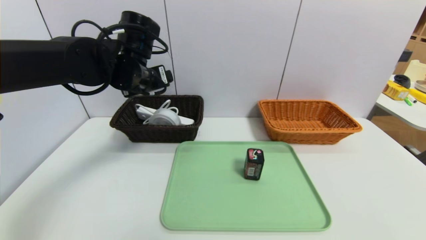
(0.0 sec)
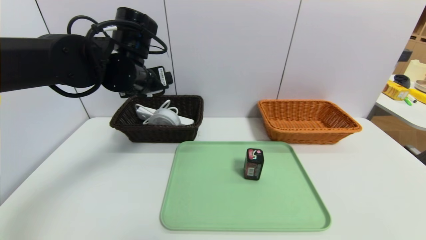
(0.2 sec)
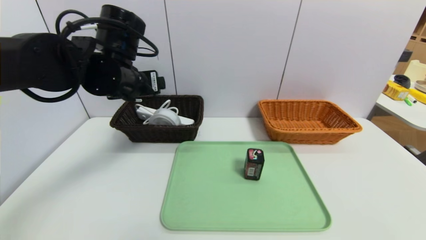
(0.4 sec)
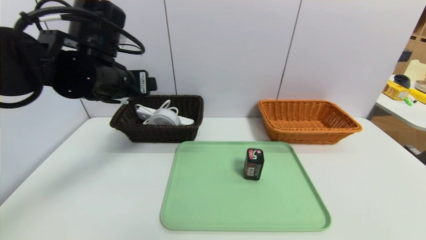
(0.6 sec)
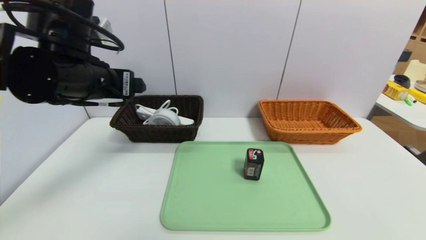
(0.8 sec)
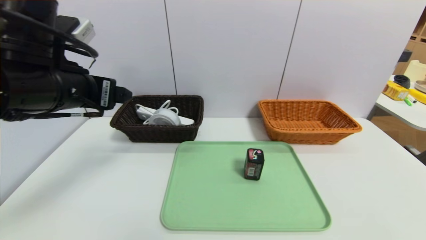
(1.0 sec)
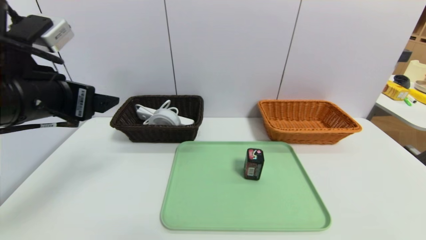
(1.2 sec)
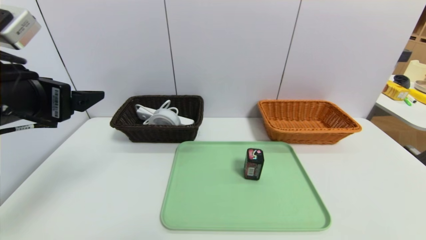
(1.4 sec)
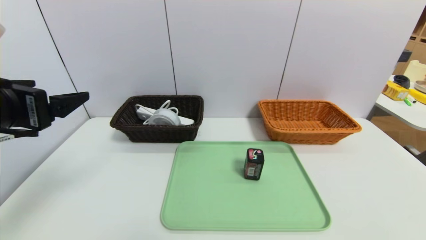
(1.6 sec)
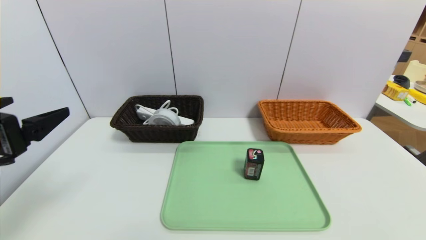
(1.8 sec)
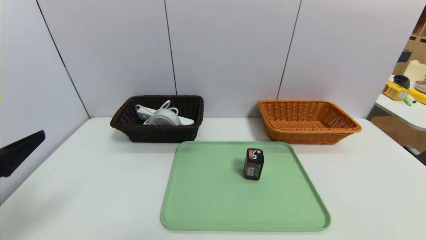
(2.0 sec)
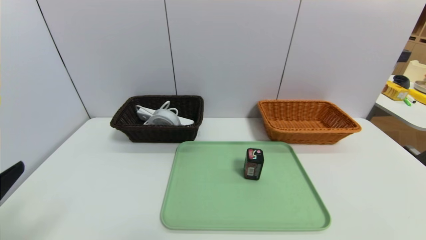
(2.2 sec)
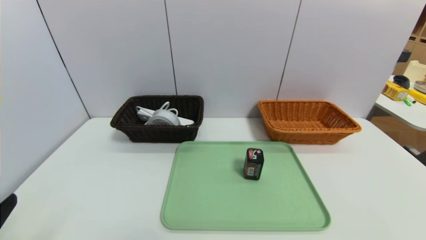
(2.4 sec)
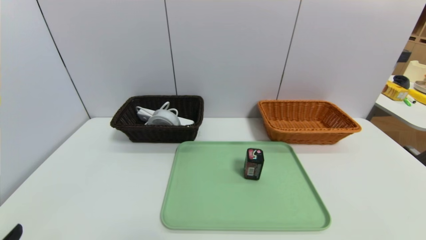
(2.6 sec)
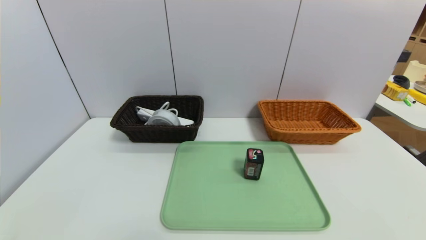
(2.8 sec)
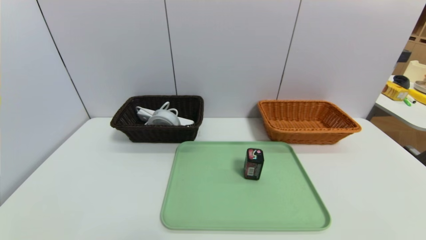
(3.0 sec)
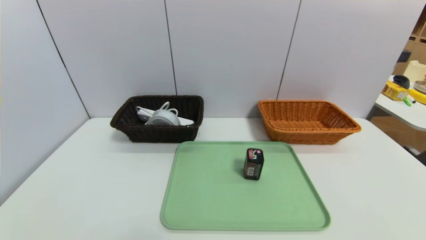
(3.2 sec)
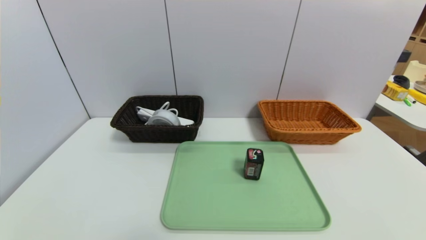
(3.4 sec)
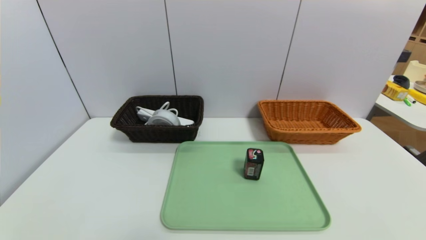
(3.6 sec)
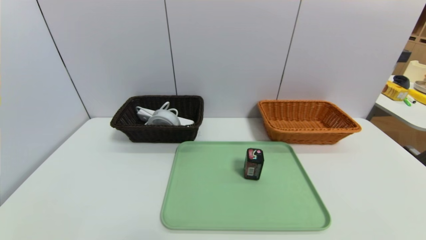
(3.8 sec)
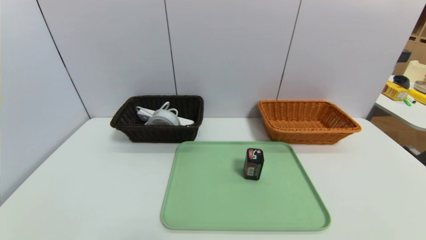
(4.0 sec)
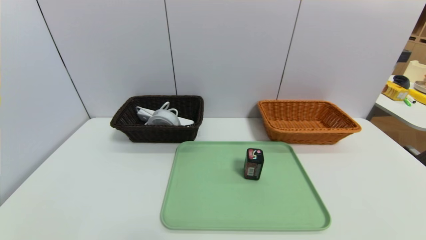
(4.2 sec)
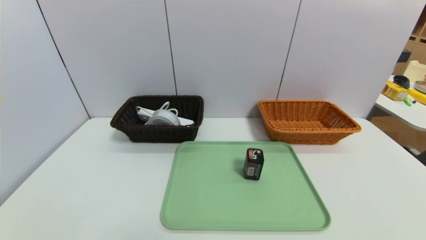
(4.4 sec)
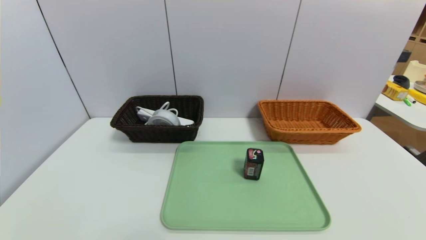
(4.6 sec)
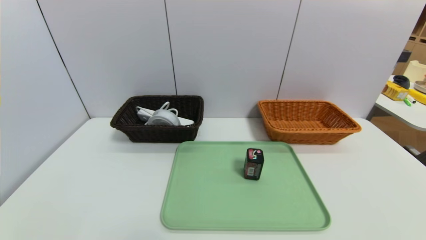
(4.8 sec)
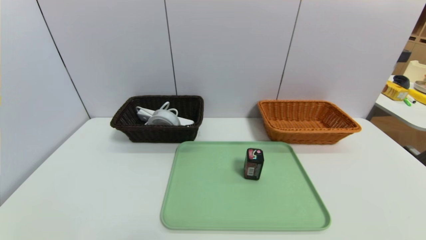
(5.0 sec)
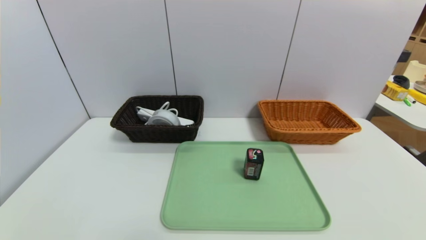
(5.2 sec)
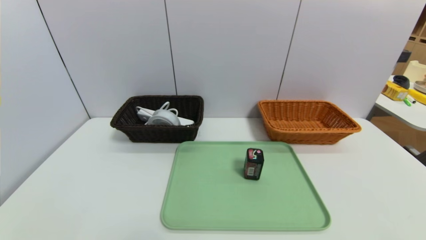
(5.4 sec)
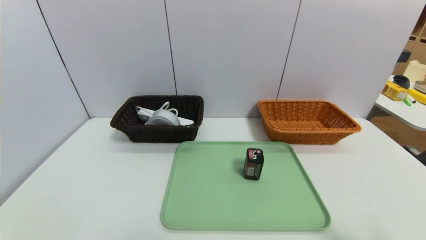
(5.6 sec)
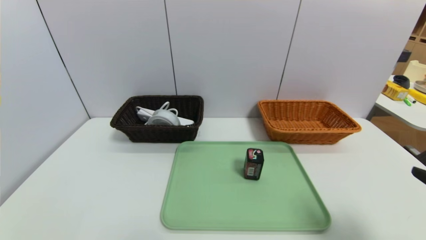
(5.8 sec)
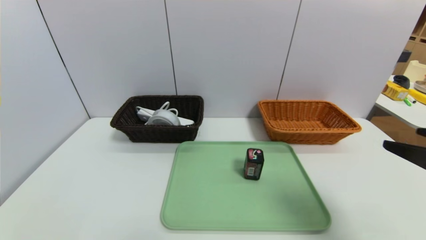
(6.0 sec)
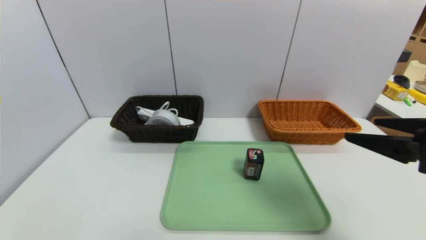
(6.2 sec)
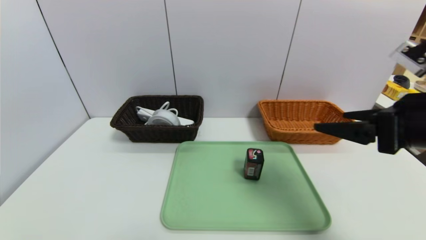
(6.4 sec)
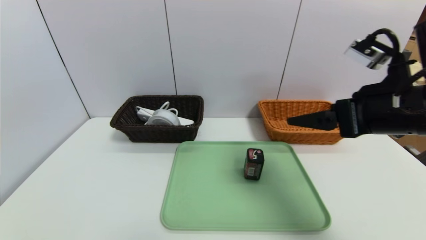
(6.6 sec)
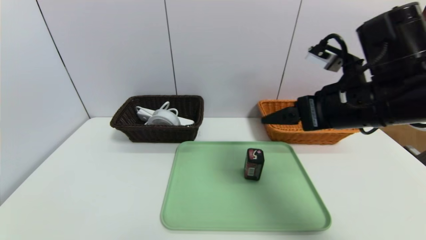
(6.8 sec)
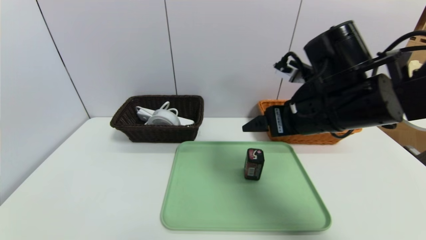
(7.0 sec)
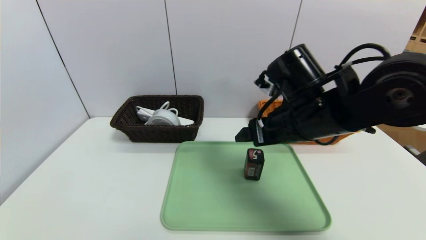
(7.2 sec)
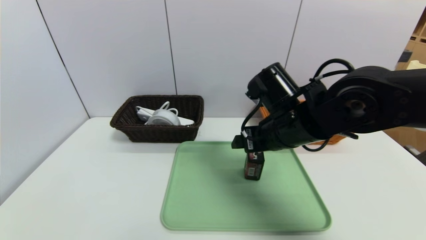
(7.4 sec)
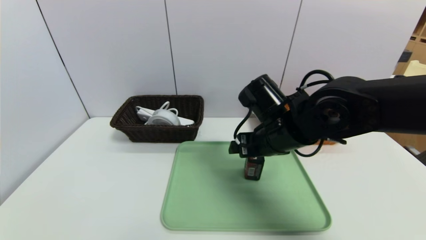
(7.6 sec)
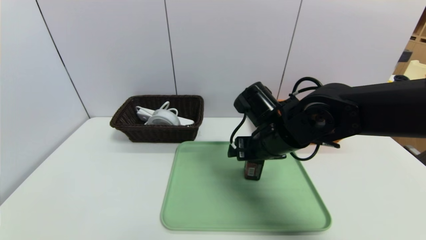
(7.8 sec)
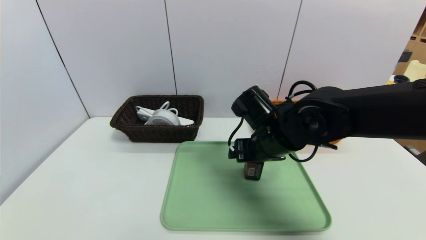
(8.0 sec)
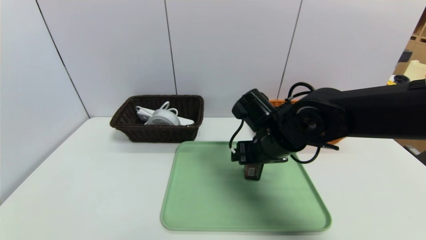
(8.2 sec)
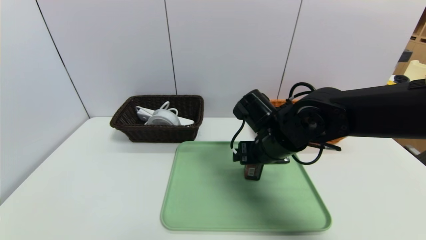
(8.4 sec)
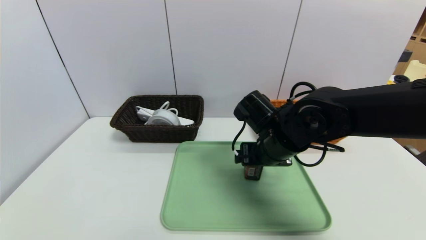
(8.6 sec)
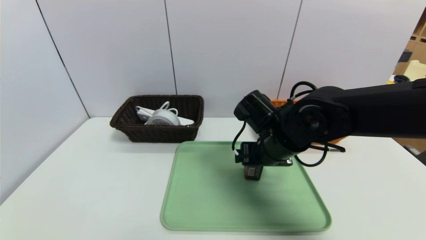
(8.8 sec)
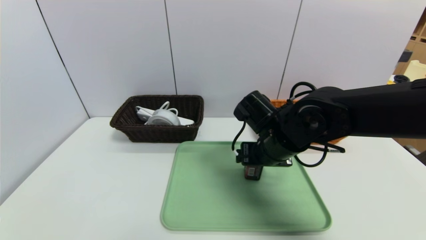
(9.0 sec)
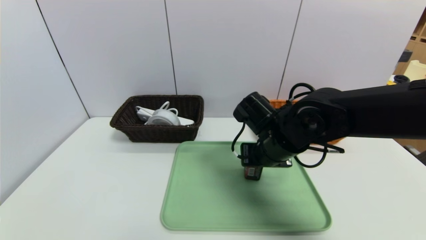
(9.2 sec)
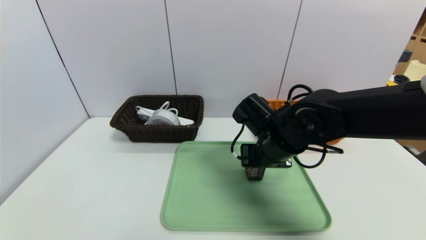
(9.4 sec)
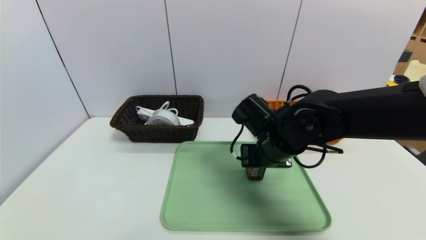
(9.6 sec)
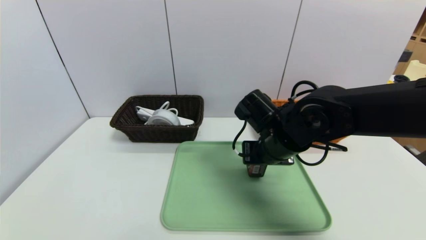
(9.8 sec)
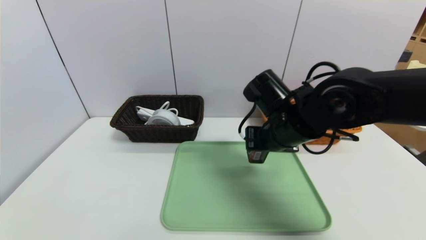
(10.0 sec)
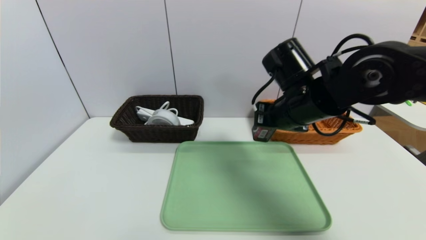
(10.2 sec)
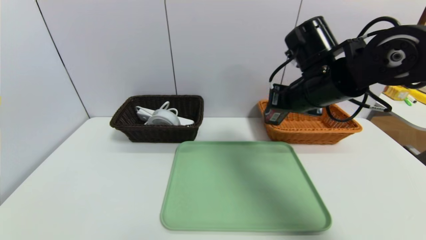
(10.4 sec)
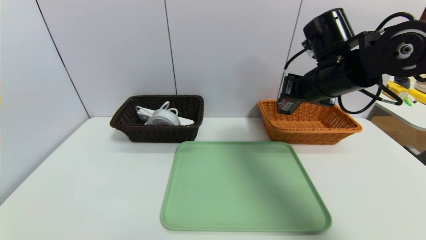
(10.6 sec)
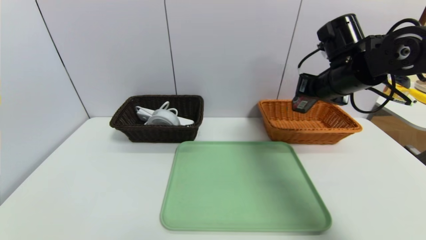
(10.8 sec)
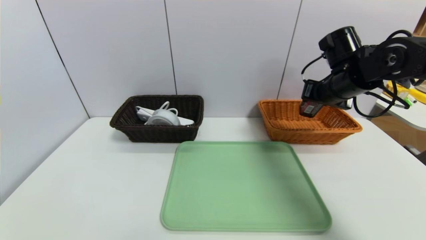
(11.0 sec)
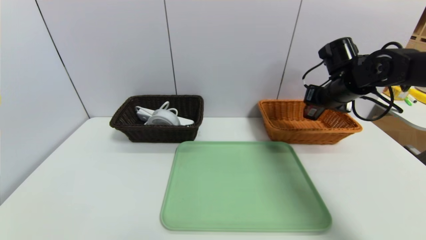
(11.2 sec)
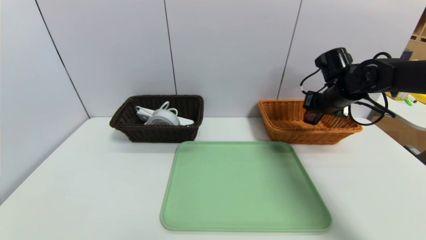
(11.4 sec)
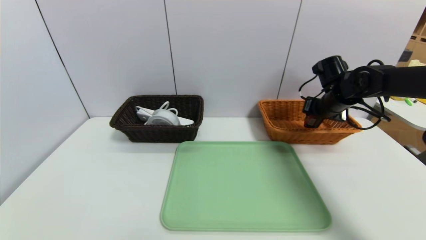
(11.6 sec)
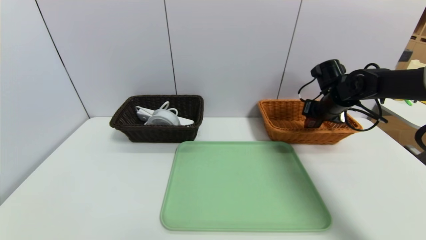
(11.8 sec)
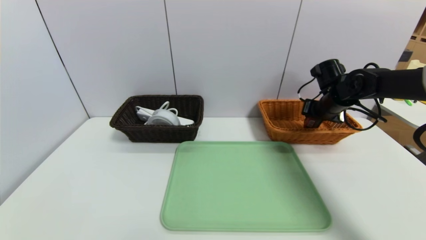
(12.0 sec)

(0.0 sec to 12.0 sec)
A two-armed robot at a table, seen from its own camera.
Task of the whole recording: place the food in the right basket with the right gripper, and place the non food items in the left basket with the left gripper.
0.0 sec - 1.6 sec: The left gripper is displaced backward and to the left by approximately 25 cm.
1.6 sec - 3.0 sec: The left gripper travels downward and backward by approximately 25 cm.
4.4 sec - 6.0 sec: The right gripper goes about 25 cm upward and forward.
6.0 sec - 7.6 sec: The right gripper shifts about 25 cm to the left and forward.
7.6 sec - 9.0 sec: The grippers stay close to where they were, moving slightly.
9.0 sec - 10.4 sec: The right gripper moves upward and to the right, about 10 cm, and closes its fingers.
10.4 sec - 12.0 sec: The right gripper shifts about 20 cm to the right, forward and downward.

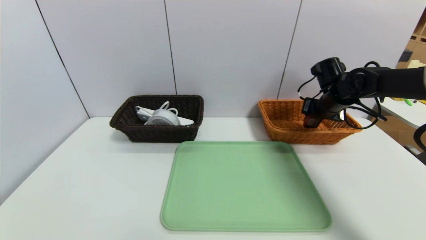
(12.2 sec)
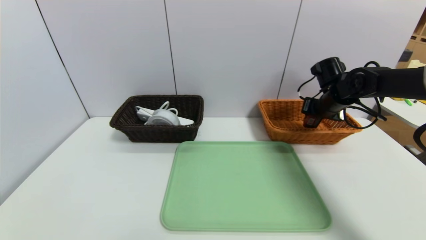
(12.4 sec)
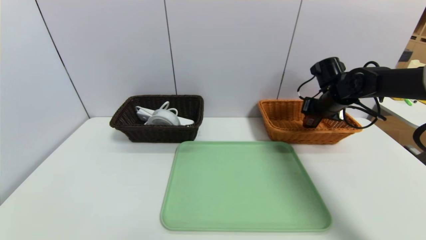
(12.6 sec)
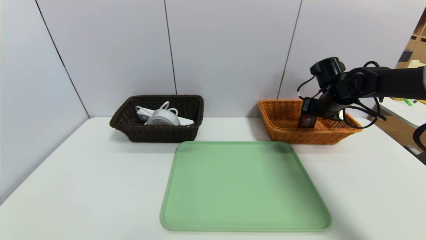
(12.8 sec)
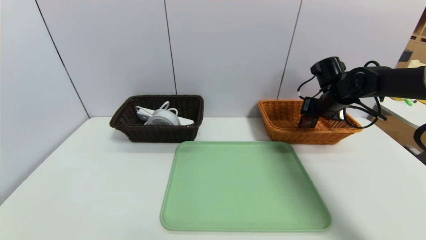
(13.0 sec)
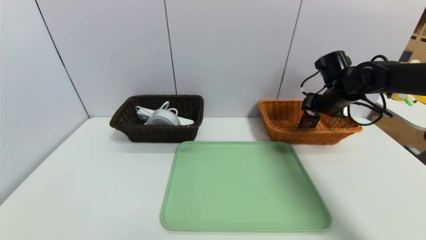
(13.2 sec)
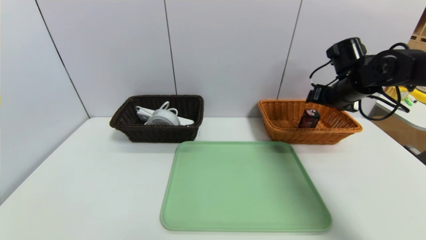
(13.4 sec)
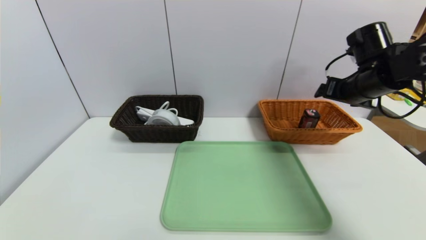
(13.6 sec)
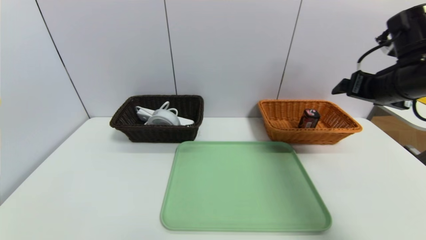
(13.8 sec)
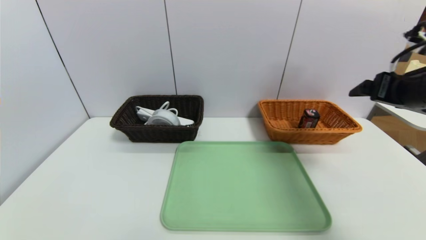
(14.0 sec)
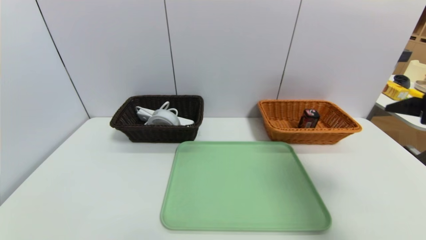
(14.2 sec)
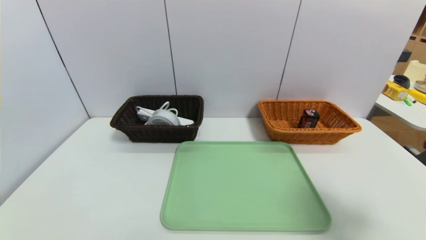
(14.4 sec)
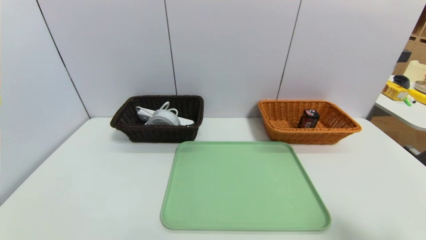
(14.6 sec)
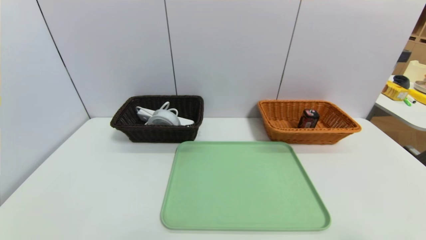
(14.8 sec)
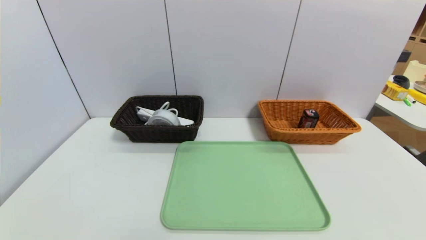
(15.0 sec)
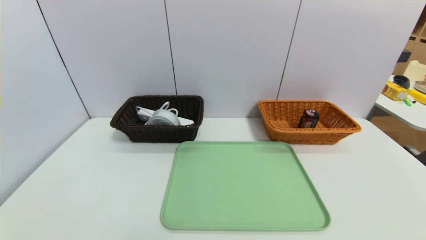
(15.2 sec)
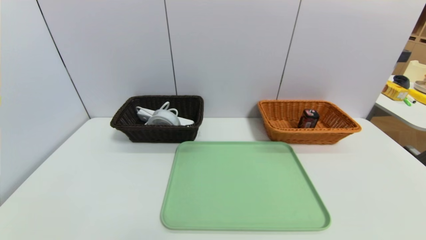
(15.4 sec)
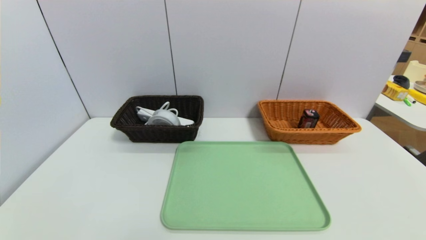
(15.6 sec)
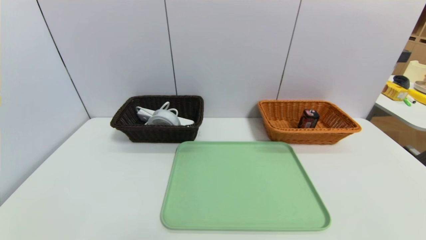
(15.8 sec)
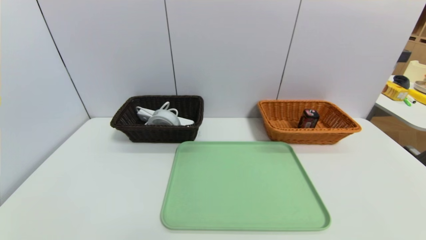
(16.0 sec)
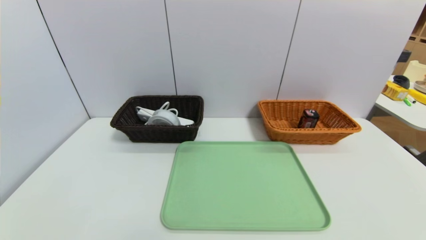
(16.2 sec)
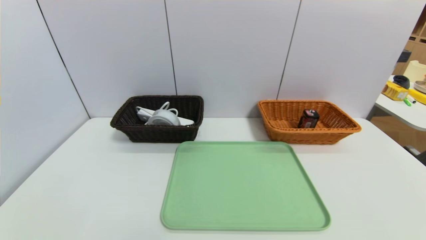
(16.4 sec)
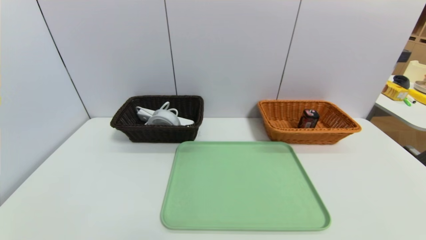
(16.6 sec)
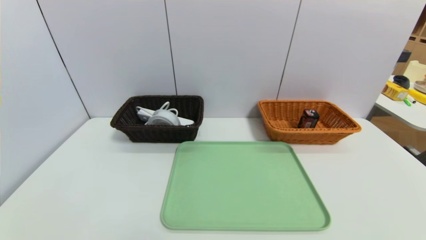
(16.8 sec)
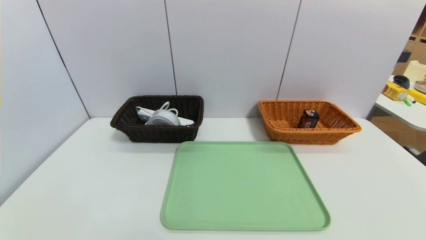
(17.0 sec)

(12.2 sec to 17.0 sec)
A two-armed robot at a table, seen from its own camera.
Task of the whole recording: place the food in the right basket with the right gripper, and place the non food items in the left basket with the left gripper.
12.2 sec - 13.8 sec: The right gripper is displaced backward and upward by some 15 cm, and opens.
13.8 sec - 15.4 sec: The right gripper travels backward and downward by roughly 35 cm.
